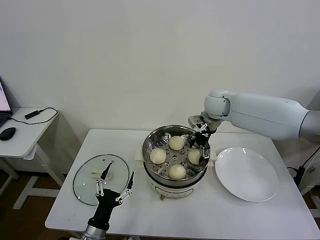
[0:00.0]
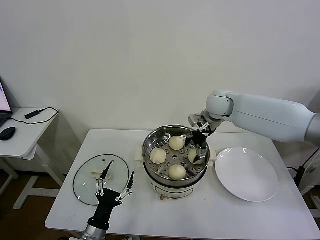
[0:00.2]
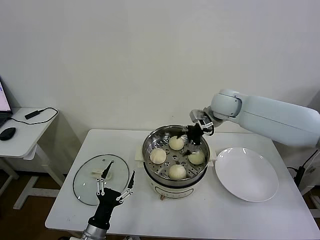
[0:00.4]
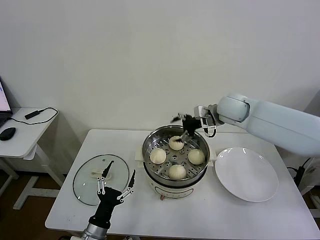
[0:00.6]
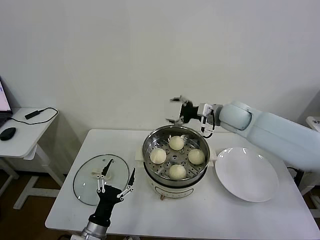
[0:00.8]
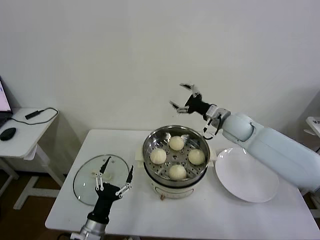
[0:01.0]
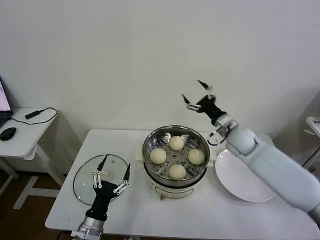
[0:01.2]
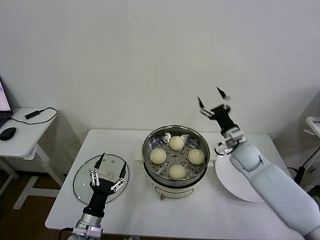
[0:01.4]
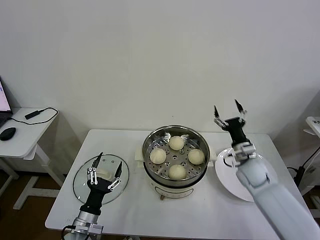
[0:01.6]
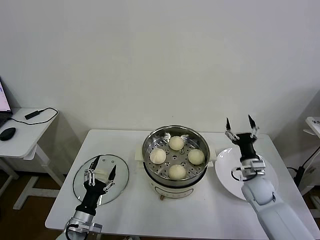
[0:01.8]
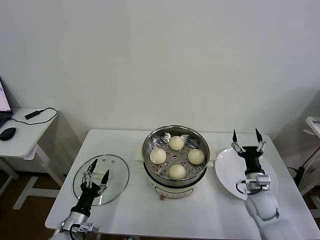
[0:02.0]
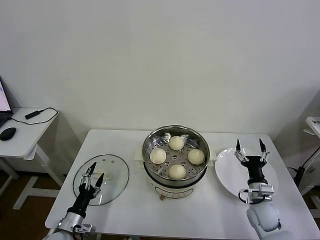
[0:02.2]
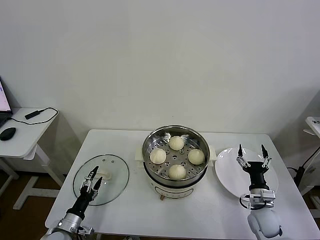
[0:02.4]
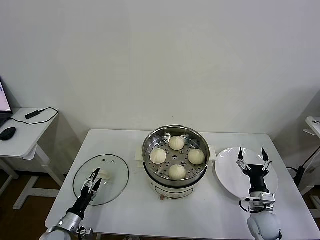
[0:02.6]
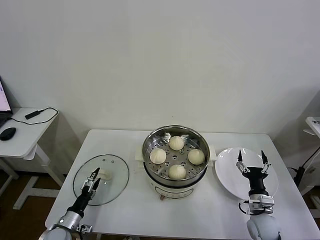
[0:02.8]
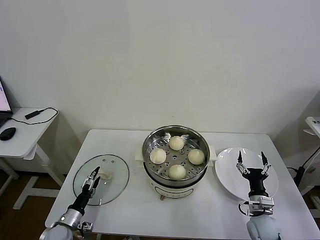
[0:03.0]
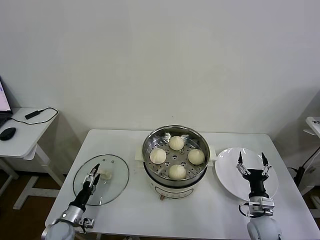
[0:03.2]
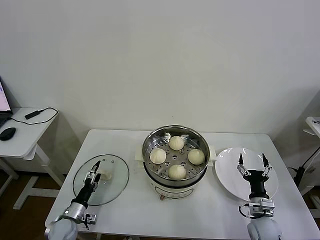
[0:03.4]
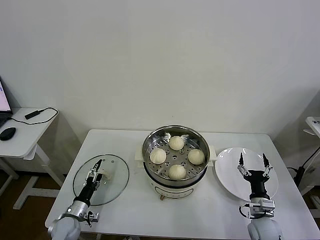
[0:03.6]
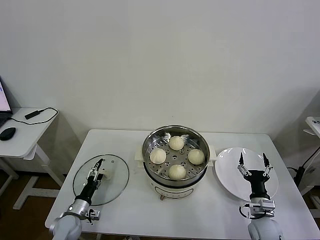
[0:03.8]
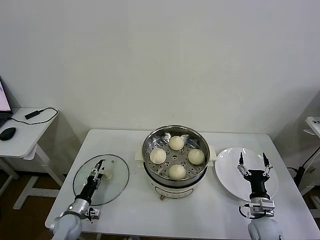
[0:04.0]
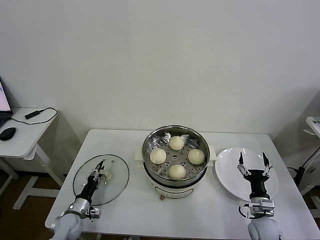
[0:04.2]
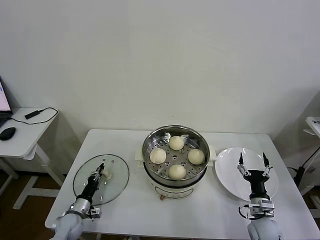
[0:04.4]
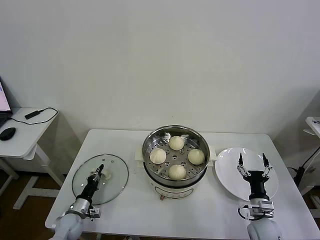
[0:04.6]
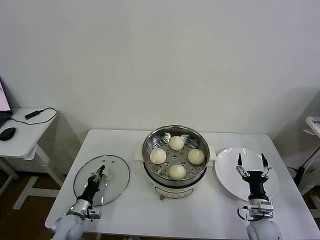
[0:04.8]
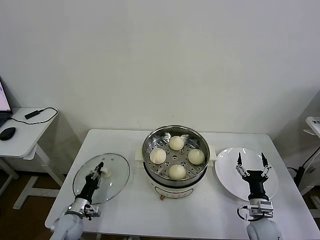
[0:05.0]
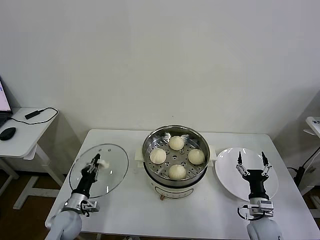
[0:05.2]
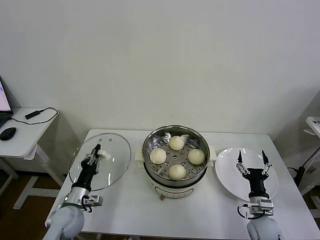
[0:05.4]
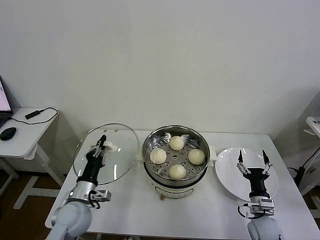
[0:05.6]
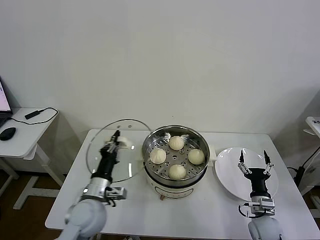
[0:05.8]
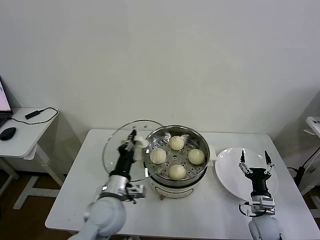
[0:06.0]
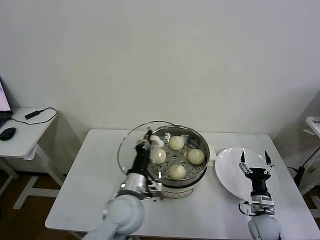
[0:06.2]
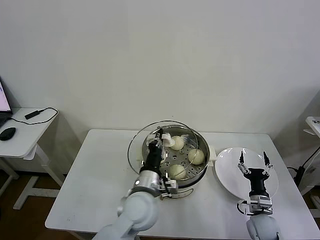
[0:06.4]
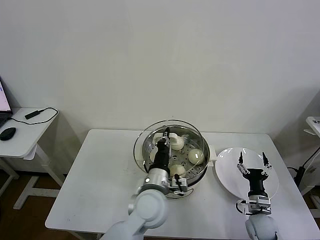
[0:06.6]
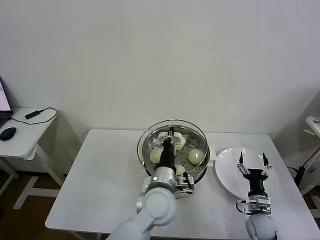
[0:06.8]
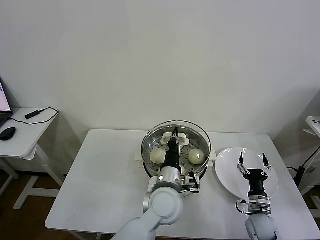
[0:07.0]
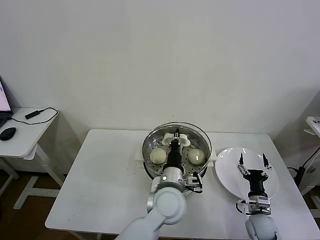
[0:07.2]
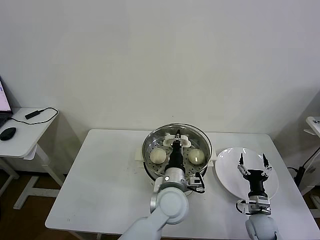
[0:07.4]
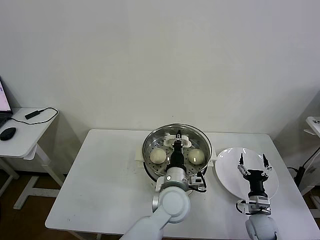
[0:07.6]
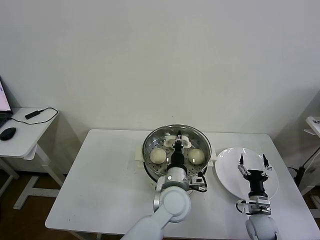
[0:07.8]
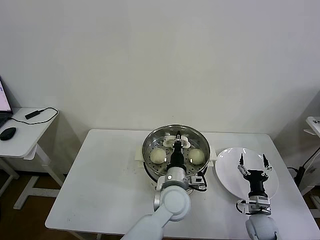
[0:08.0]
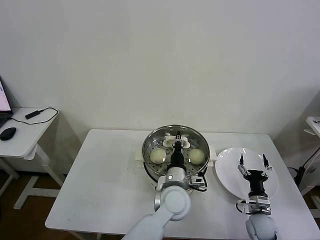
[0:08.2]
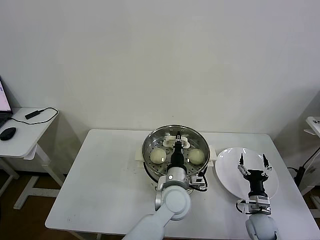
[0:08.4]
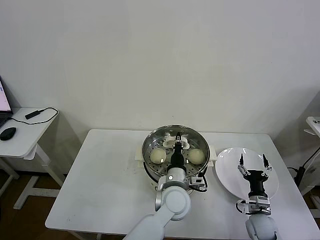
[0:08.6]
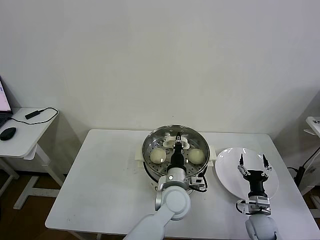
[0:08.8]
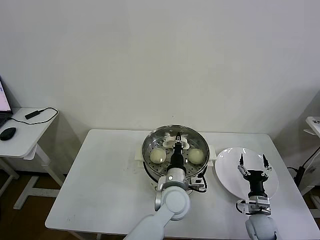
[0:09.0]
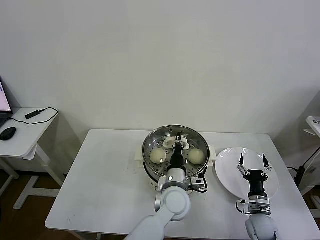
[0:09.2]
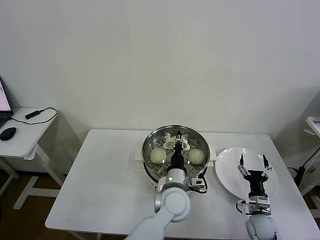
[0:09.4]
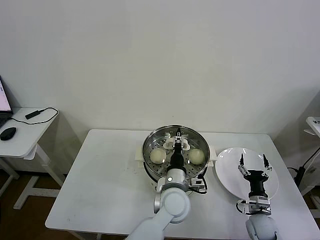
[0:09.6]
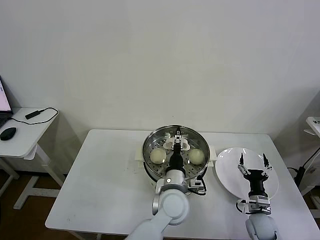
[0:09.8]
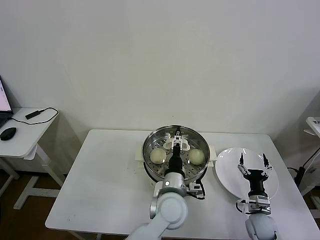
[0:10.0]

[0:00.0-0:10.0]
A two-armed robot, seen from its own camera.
Task of the whole recording: take steamed baozi put them in steamer then cover it.
Step, 0:00.2 to 0:04.6: Grasp the pot lid with left gripper.
Step, 0:04.8 to 0:09.6: Place the pot lid on the steamer with left gripper.
0:00.0 to 0:01.4: The right gripper moves downward, backward and to the right, some 25 cm.
0:01.4 to 0:02.8: The right gripper travels backward and downward by about 25 cm. The left gripper moves to the left and downward, roughly 15 cm.
0:02.8 to 0:04.2: The left gripper moves forward, approximately 5 cm, and closes.
0:04.2 to 0:05.8: The left gripper heads upward and to the right, covering approximately 25 cm, and closes its fingers.
0:05.8 to 0:07.2: The left gripper goes approximately 25 cm to the right.
0:07.2 to 0:08.6: The grippers make only small movements.
0:08.6 to 0:10.0: The left gripper opens its fingers.

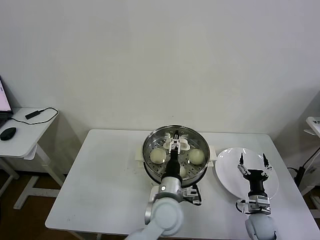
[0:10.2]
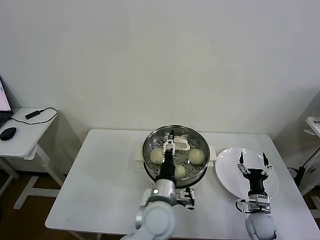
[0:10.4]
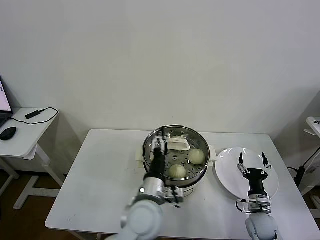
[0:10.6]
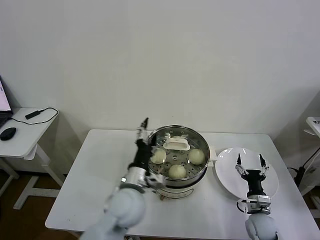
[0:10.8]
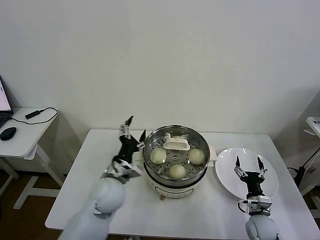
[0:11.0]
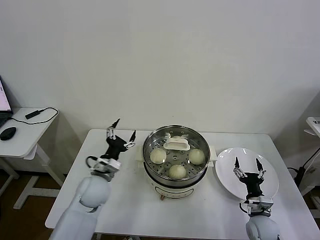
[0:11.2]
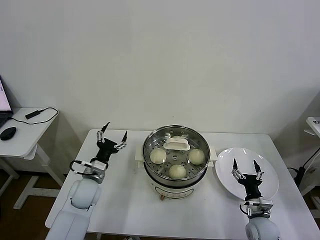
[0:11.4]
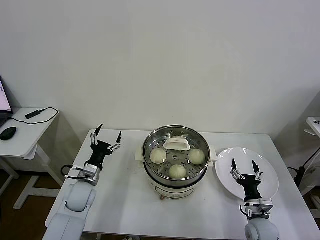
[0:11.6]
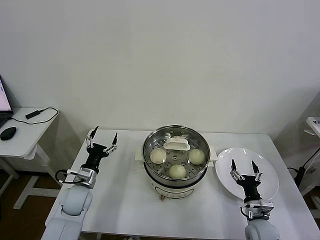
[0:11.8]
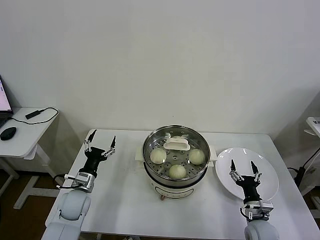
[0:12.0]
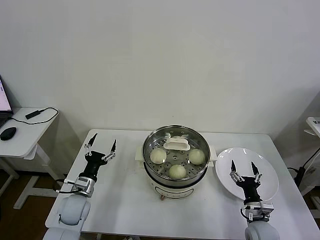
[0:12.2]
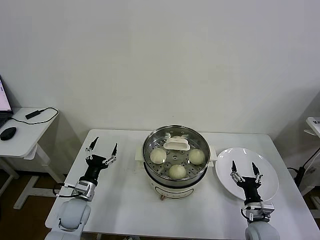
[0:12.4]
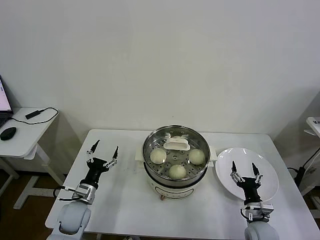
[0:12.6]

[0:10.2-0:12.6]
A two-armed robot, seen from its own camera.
Task of the whole recording: take steamed baozi put them in steamer then cover it.
0:10.2 to 0:11.4: The left gripper goes roughly 25 cm to the left.
0:11.4 to 0:12.6: The left gripper is displaced downward and backward by roughly 10 cm.
